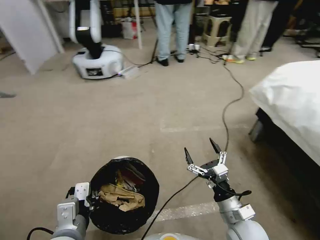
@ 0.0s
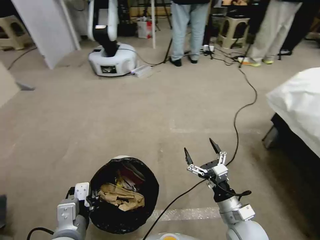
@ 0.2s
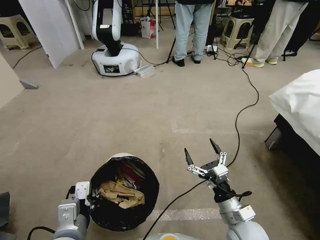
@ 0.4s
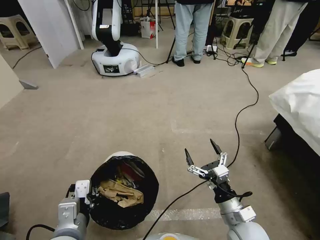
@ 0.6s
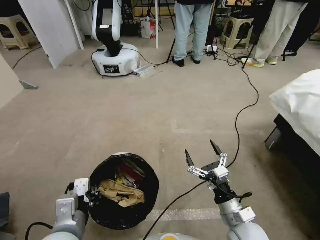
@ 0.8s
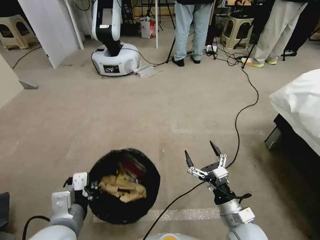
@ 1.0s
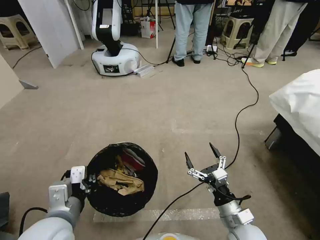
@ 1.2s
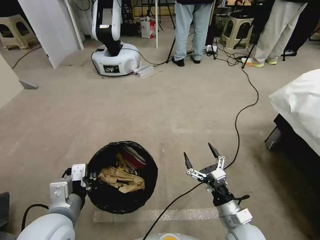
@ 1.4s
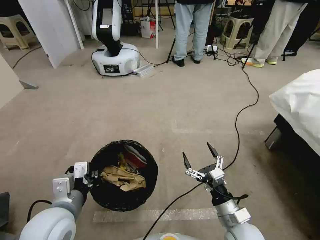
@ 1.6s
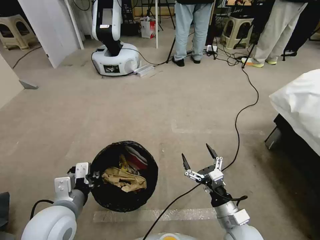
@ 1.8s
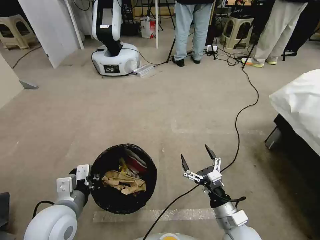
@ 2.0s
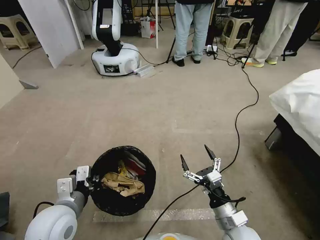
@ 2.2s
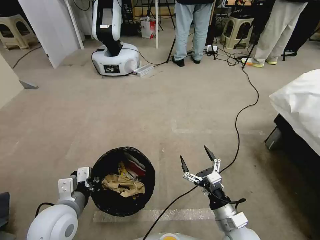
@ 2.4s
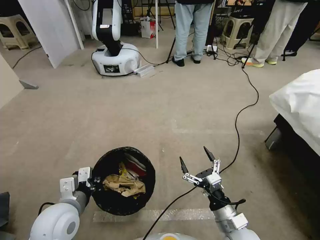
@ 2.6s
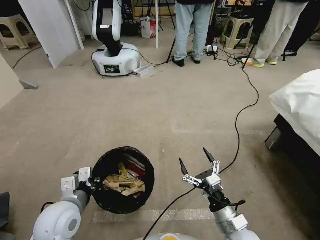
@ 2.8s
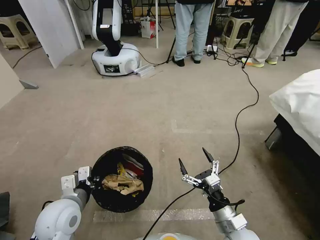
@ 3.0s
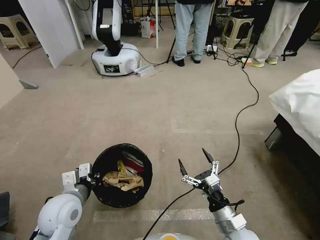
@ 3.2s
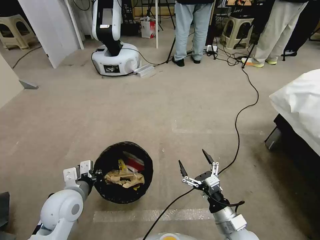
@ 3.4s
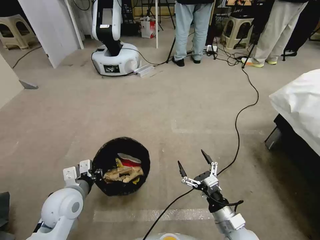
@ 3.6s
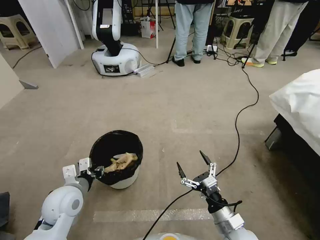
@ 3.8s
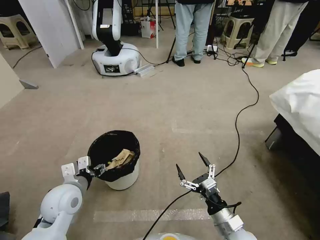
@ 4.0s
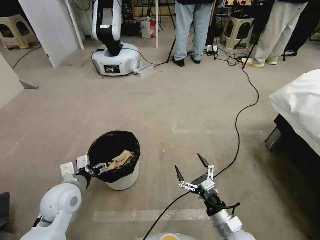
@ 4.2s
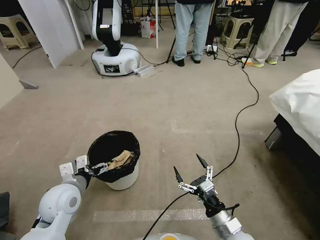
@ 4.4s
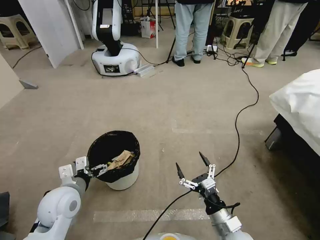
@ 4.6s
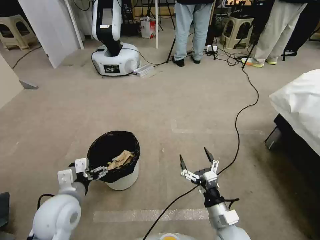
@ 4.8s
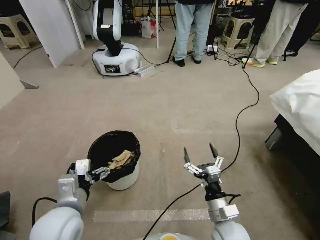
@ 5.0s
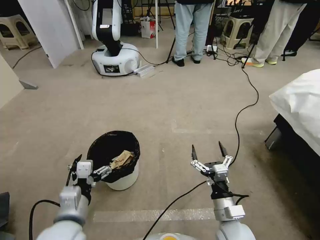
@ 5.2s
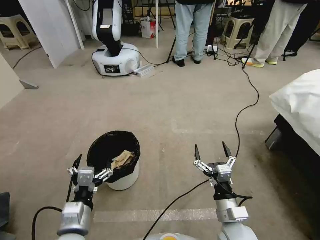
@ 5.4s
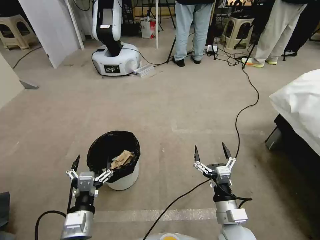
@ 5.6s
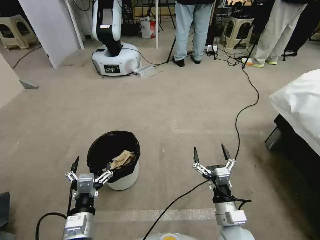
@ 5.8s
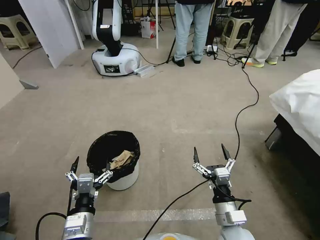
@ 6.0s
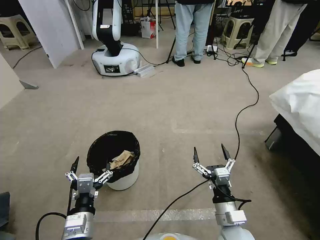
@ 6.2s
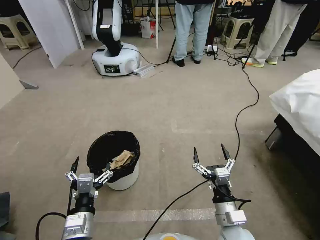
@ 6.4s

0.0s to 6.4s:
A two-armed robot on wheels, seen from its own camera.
Task of the whole recording: Pick up the trash bin, then pick up the garbage from the floor and place it into the trash bin.
0.0s to 1.6s: The left gripper moves roughly 5 cm.
1.6s to 3.2s: The left gripper is displaced downward by about 5 cm.
3.2s to 4.8s: The left gripper opens.
4.8s to 6.4s: The left gripper heads backward, downward and to the right, covering about 10 cm.
